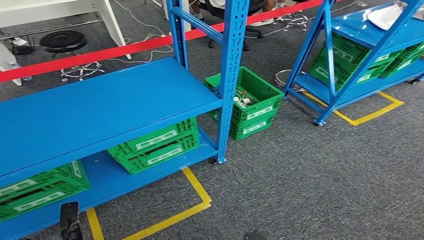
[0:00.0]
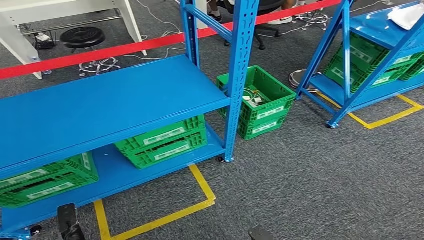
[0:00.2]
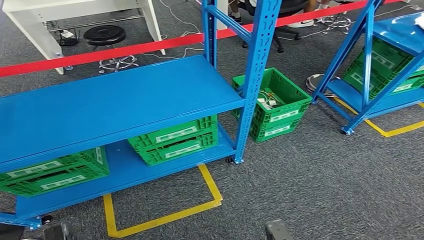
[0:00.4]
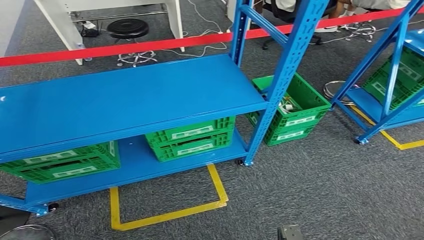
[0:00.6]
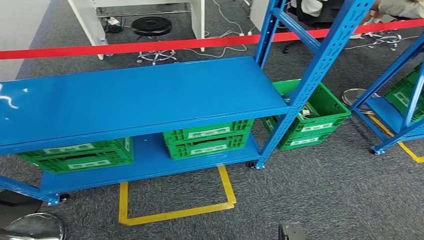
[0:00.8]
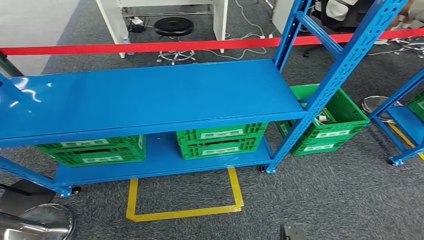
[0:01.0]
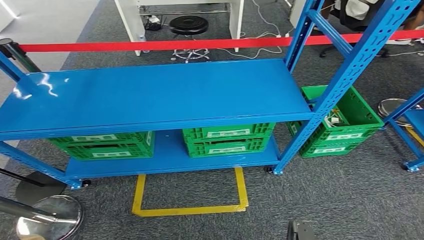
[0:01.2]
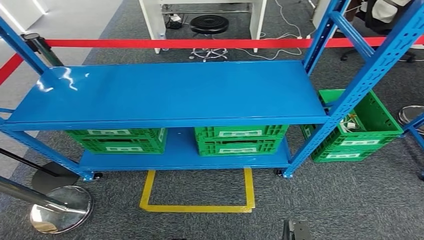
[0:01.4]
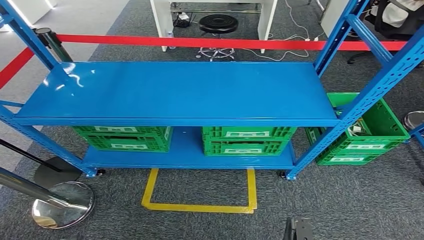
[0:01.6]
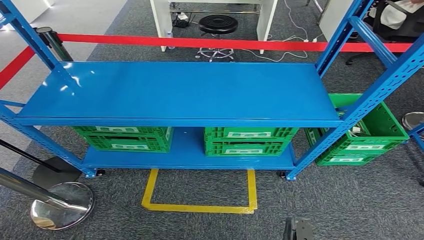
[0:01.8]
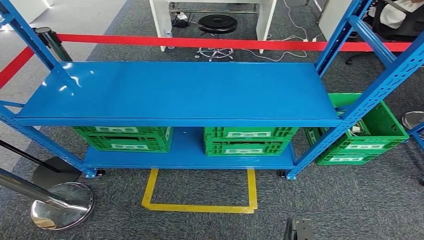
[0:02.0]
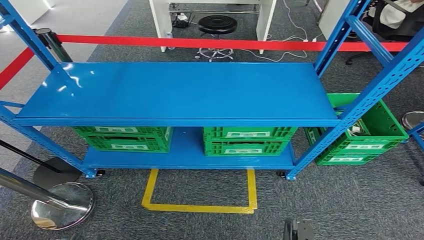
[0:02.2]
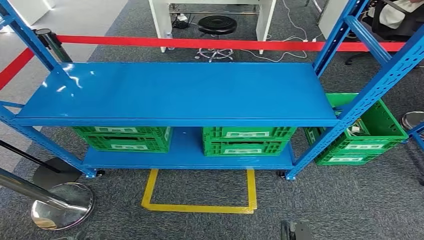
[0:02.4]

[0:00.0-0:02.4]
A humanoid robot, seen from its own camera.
Step, 0:00.0 to 0:02.2: Return to the initial position at the workbench.
